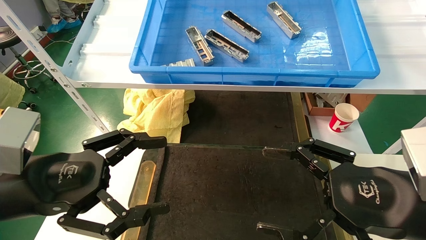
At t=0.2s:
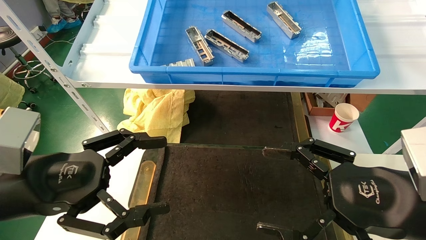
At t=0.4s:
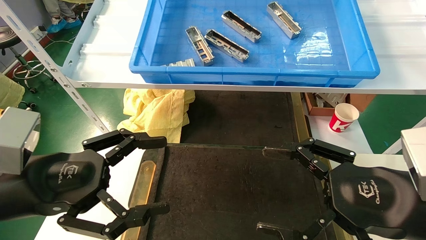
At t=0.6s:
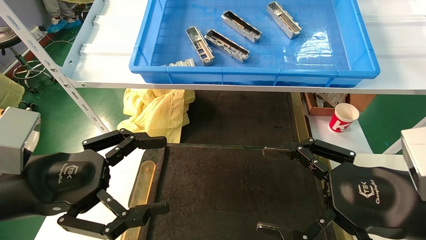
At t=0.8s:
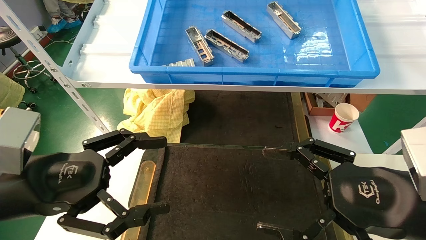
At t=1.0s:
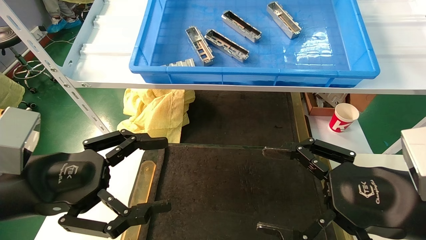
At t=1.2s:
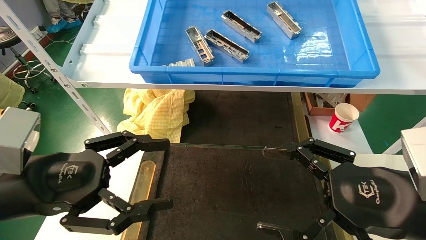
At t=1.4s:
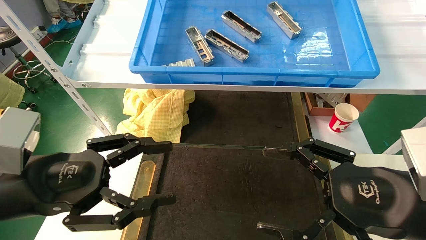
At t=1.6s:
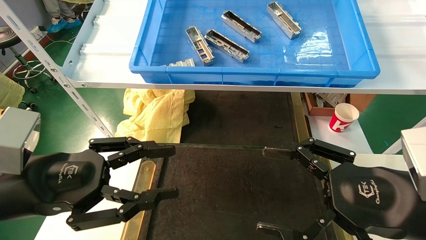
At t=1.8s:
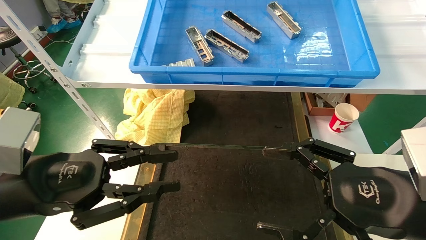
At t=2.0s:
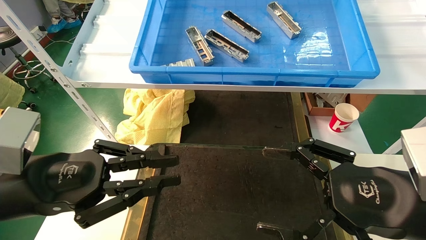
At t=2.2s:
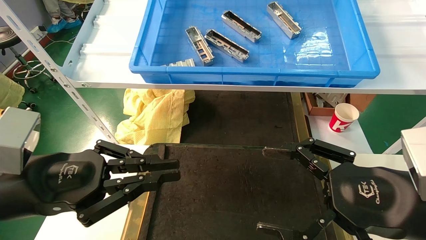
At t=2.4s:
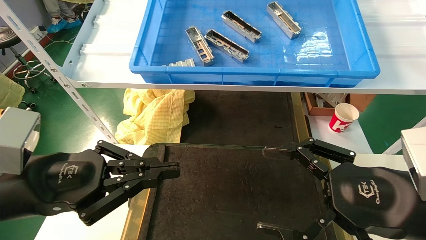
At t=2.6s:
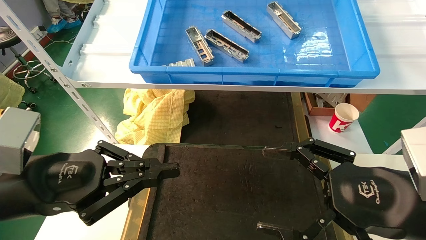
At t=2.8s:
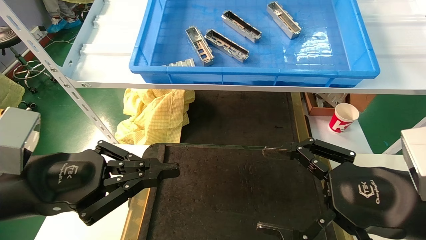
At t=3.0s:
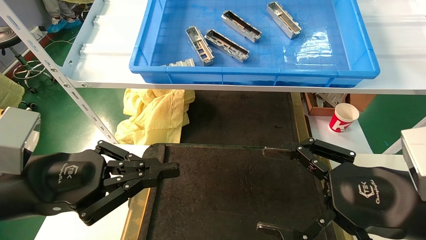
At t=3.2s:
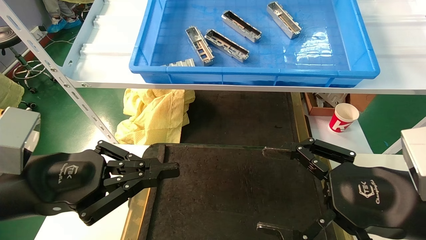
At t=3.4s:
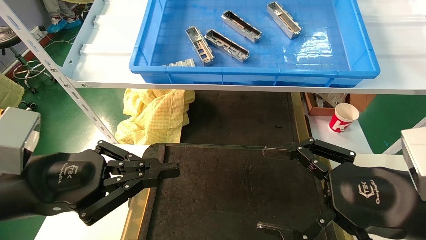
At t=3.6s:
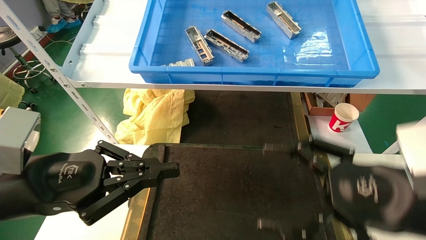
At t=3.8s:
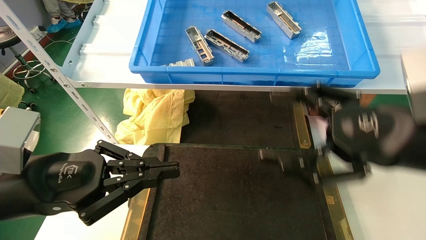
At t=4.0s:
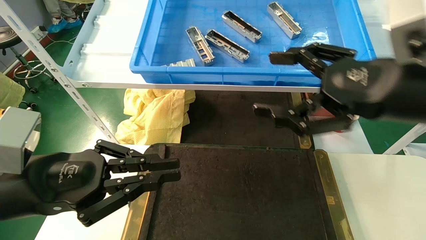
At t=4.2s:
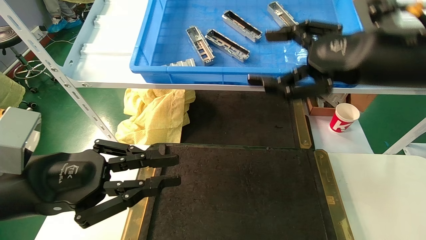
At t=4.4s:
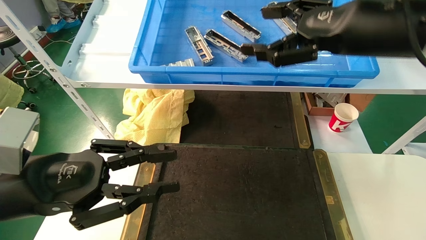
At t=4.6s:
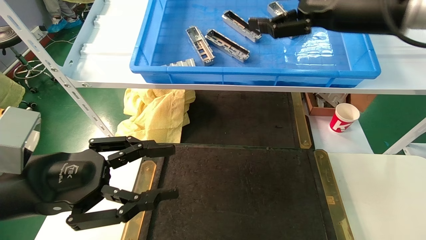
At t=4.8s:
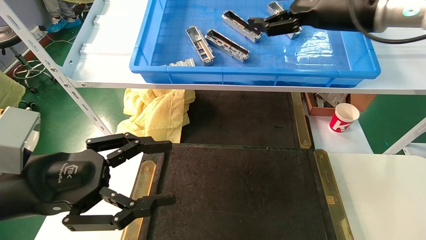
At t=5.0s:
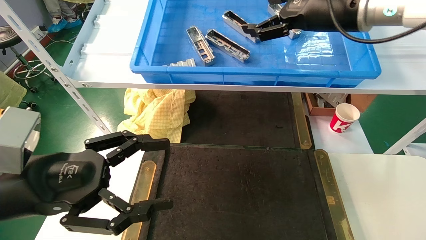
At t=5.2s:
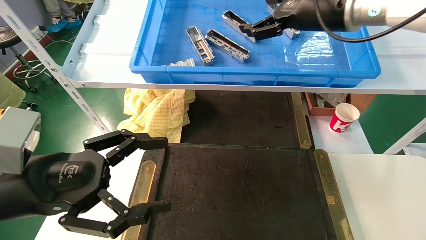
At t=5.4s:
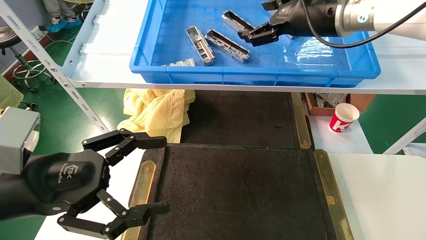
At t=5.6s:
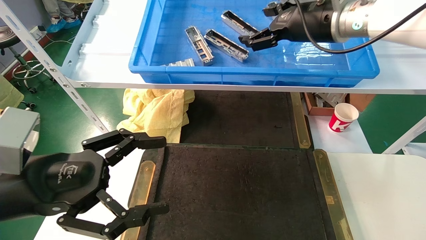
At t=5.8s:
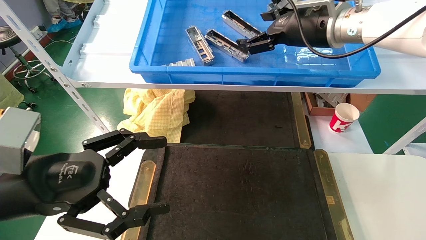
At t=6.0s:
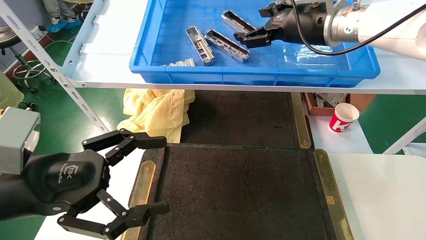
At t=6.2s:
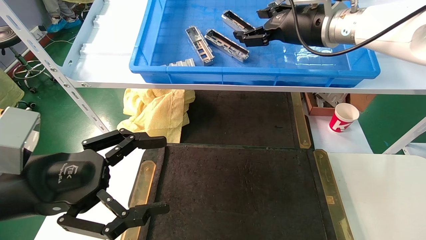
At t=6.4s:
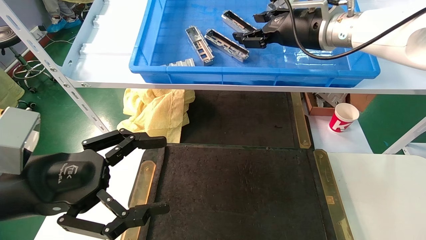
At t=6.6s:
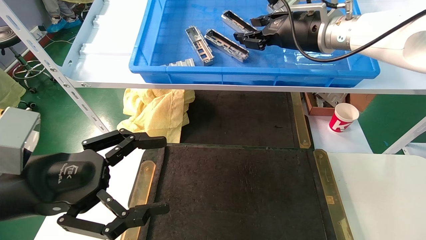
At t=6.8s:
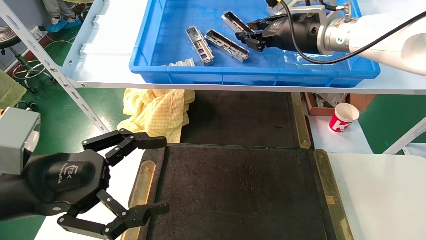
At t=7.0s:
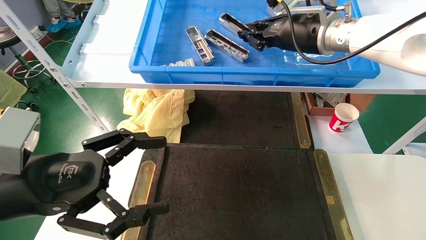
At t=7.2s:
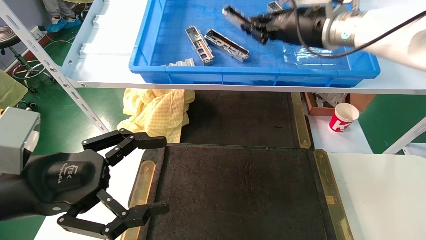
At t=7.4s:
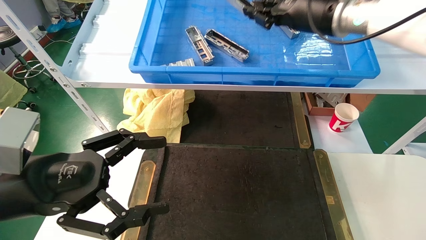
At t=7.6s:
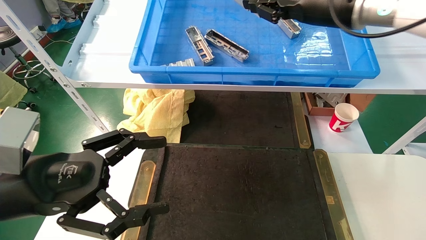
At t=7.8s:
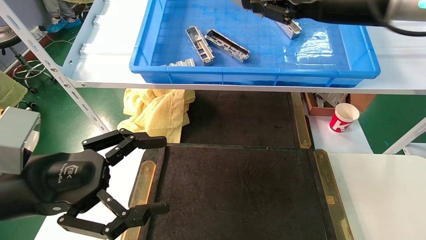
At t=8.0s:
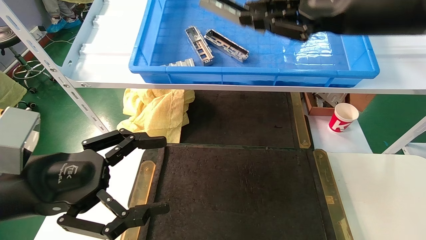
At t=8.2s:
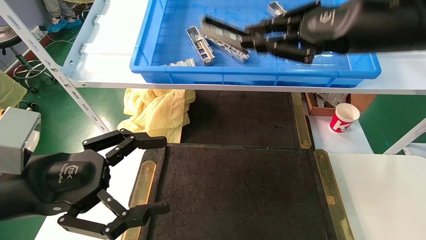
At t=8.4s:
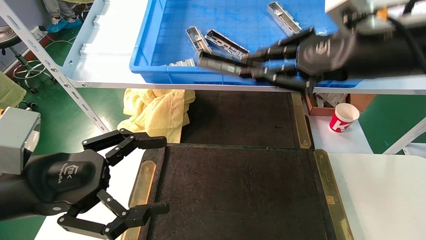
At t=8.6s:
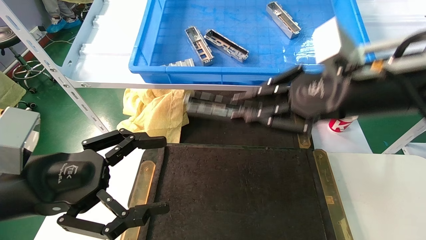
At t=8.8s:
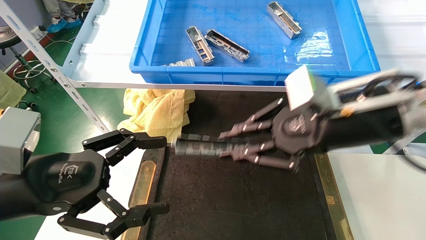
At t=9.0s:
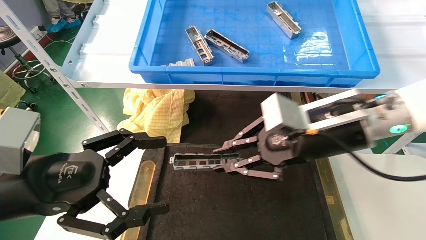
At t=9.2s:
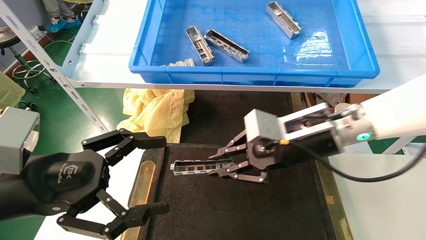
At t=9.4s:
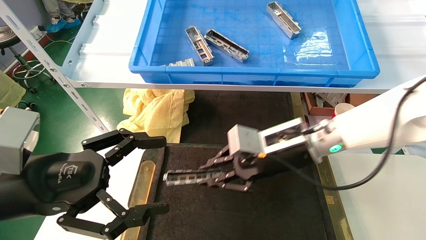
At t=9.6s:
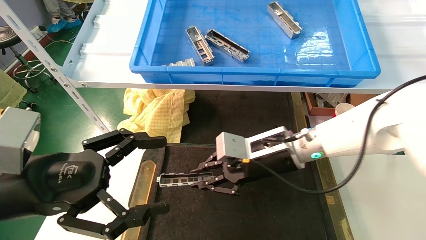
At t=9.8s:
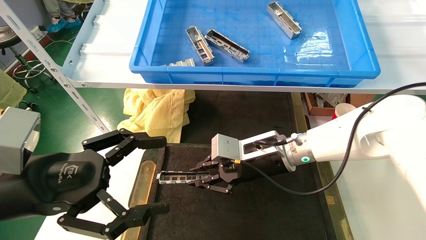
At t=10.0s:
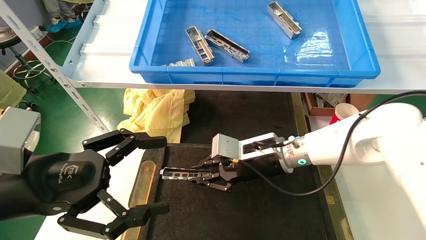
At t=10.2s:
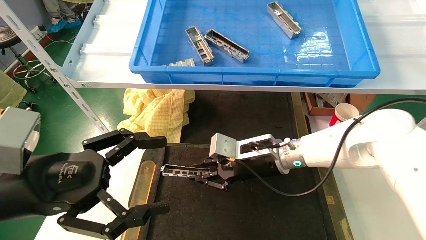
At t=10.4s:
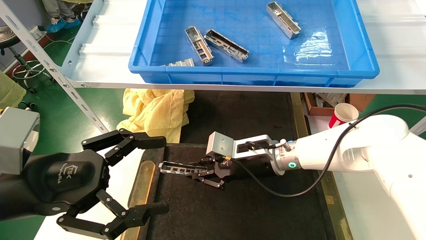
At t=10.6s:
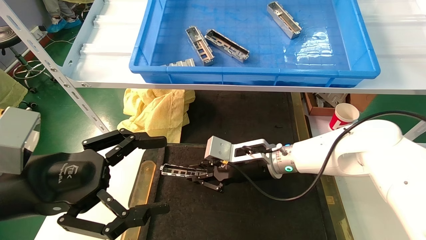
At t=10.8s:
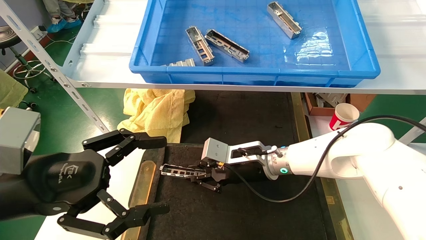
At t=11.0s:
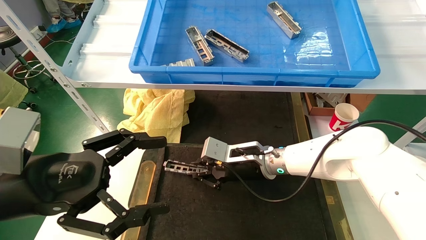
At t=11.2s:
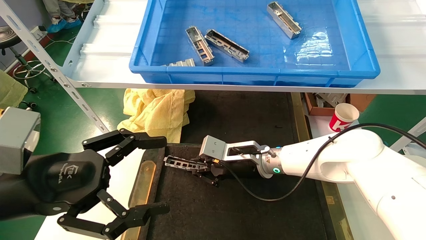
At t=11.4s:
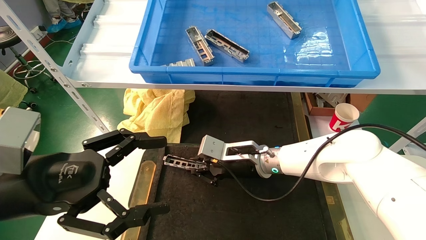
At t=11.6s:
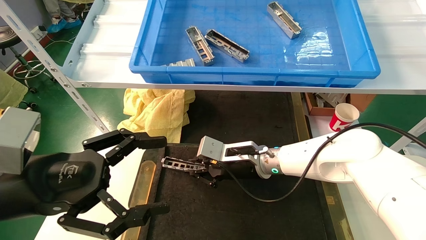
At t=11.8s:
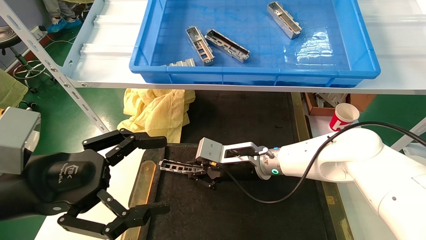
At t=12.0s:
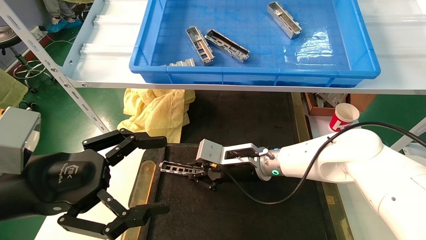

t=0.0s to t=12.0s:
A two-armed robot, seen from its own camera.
Task of the whole recording: grasp the part and place them on the black container.
Step, t=4.0s to t=7.6s: Pick up and lift the front USB bracket from the feeding area.
t=0.0s to t=1.6s: The left gripper closes its fingers.
t=1.6s to t=3.0s: The left gripper closes up.
t=3.0s to t=4.4s: The right gripper shifts roughly 20 cm upward and forward.
t=4.4s to t=6.0s: The right gripper shifts some 15 cm forward and to the left. The left gripper opens its fingers.
t=6.0s to t=7.6s: The right gripper shifts by about 5 cm, and closes.
t=7.6s to t=9.0s: The right gripper goes about 20 cm downward and backward.
t=9.0s to t=10.4s: The right gripper is displaced downward, forward and to the left by roughly 20 cm.
t=10.4s to t=12.0s: The grippers move only a little.

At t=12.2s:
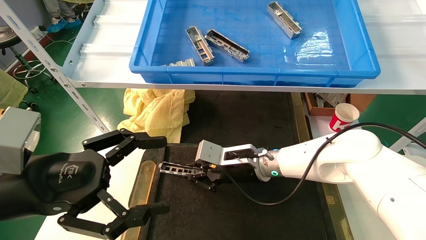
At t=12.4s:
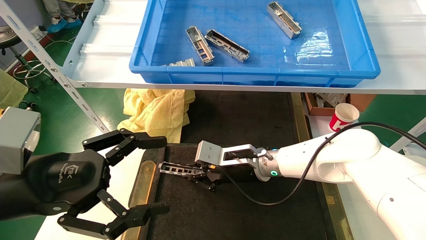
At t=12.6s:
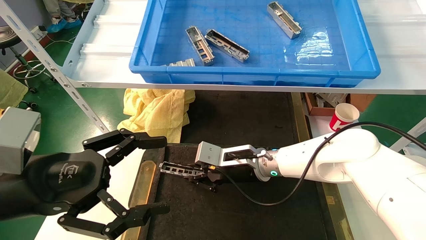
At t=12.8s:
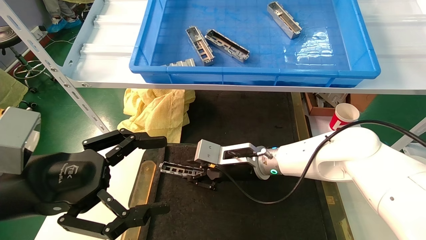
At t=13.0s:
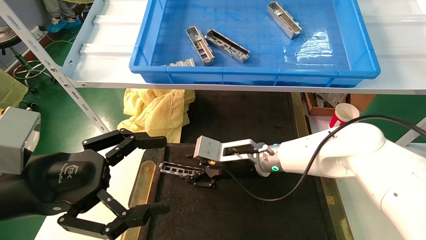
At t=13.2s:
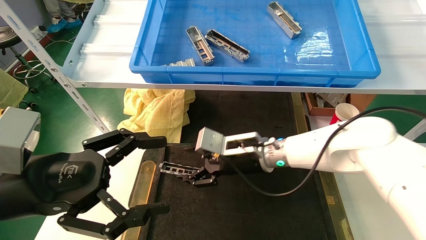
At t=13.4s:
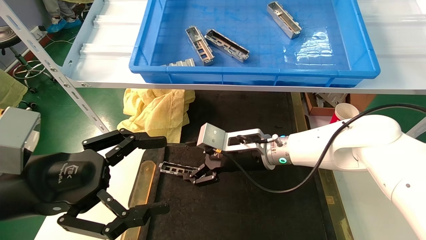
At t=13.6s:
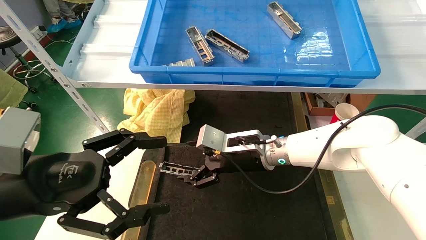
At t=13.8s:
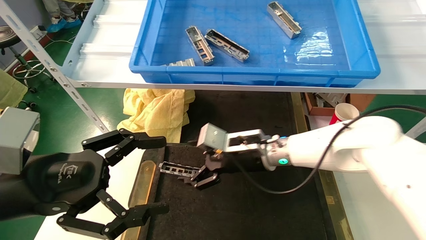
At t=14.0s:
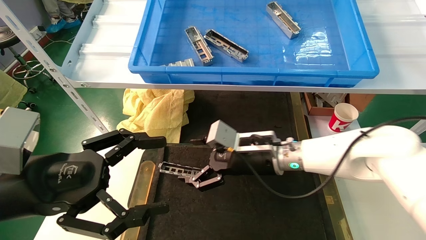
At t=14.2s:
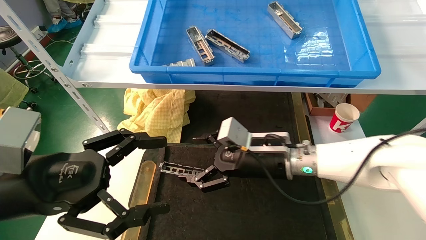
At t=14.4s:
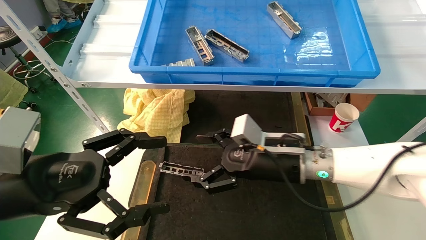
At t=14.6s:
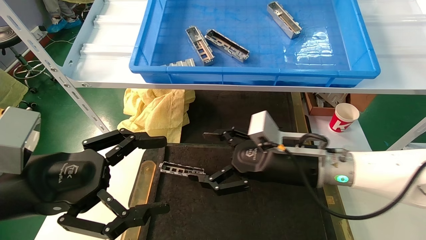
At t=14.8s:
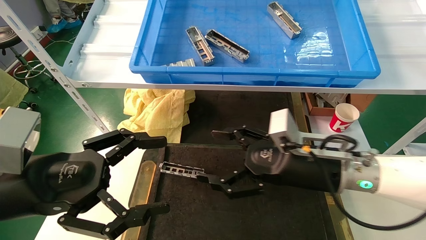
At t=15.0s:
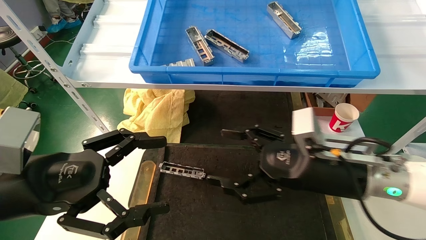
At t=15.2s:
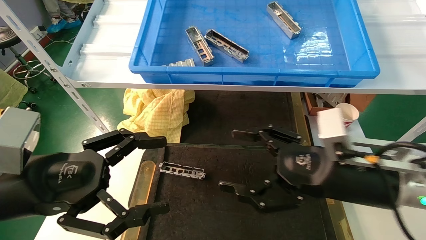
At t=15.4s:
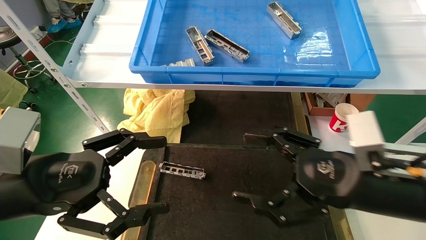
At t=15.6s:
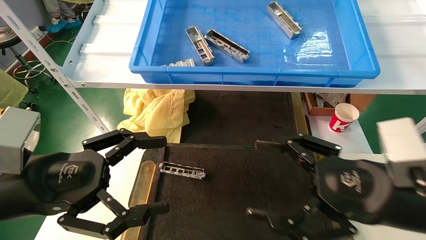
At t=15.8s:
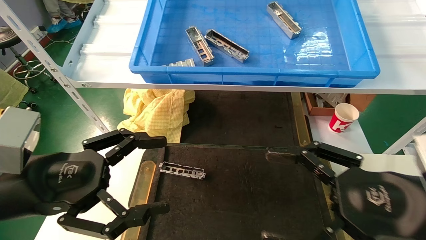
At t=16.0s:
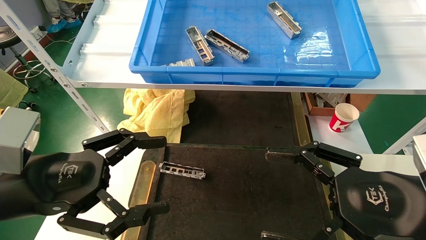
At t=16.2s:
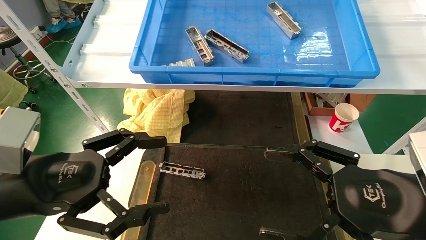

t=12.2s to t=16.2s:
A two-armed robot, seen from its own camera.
Task of the whole recording: grasp the part and place them on the black container.
t=12.2s to t=13.6s: The right gripper opens.
t=13.6s to t=14.8s: The right gripper goes about 15 cm to the right and backward.
t=14.8s to t=16.2s: The right gripper heads backward and to the right, covering approximately 15 cm.
